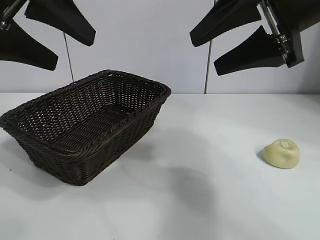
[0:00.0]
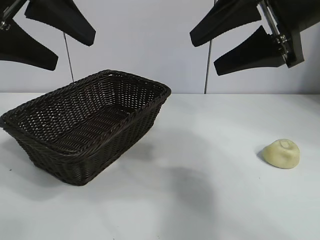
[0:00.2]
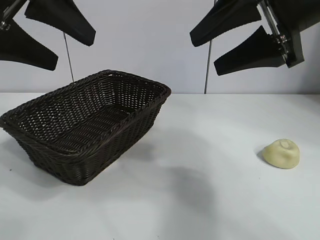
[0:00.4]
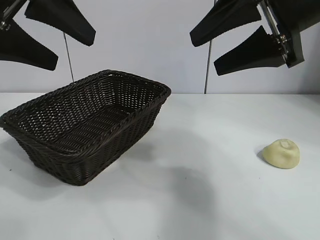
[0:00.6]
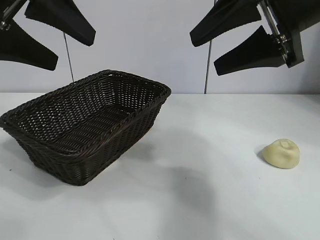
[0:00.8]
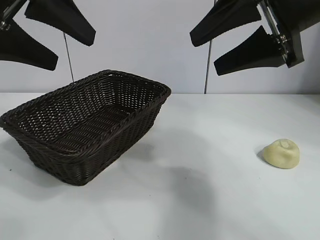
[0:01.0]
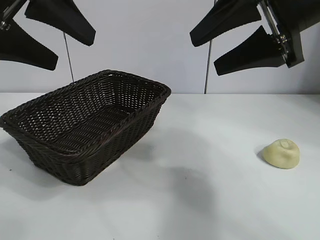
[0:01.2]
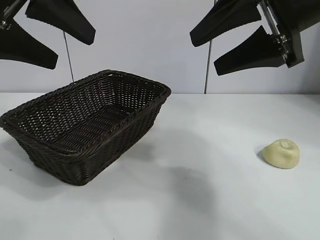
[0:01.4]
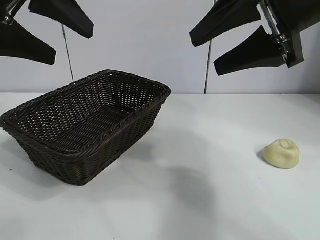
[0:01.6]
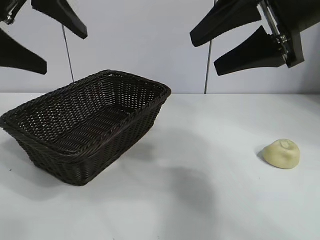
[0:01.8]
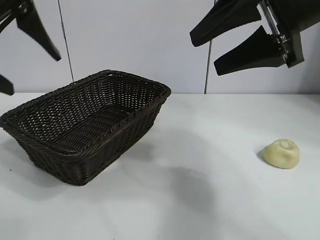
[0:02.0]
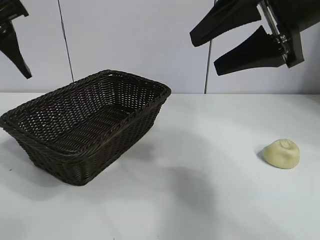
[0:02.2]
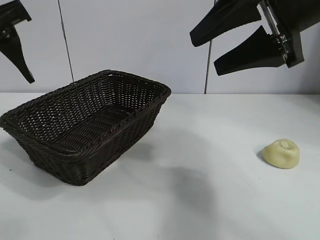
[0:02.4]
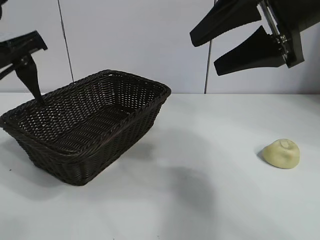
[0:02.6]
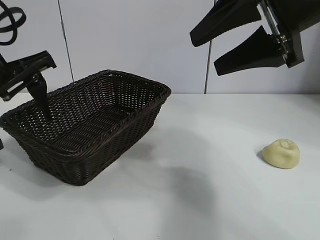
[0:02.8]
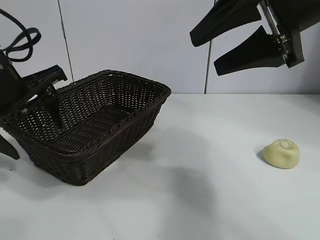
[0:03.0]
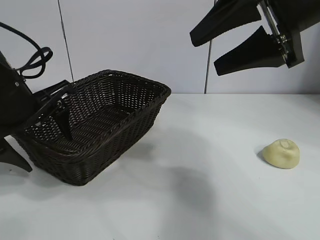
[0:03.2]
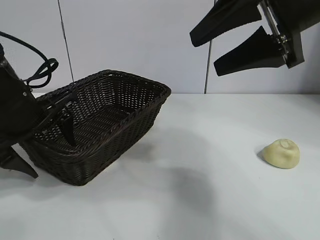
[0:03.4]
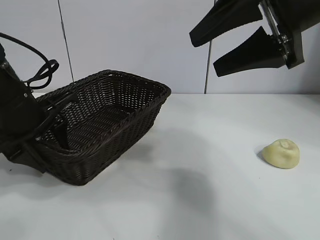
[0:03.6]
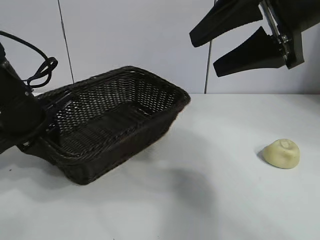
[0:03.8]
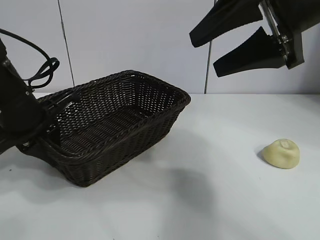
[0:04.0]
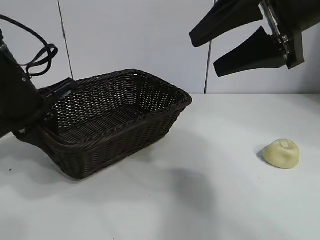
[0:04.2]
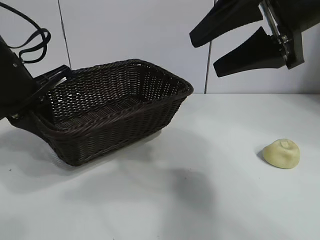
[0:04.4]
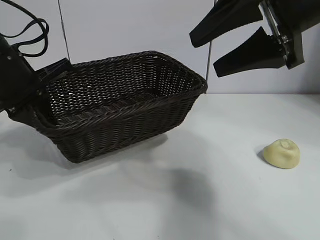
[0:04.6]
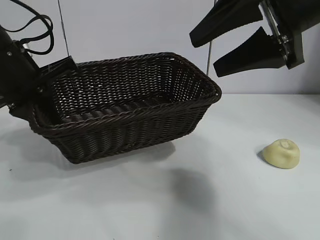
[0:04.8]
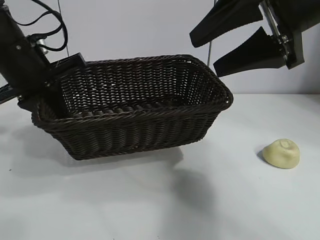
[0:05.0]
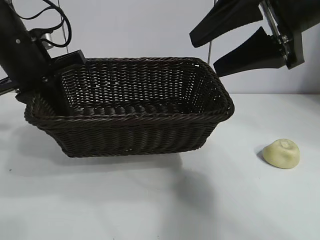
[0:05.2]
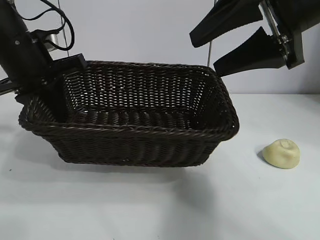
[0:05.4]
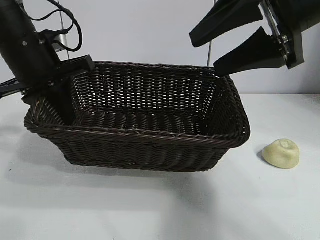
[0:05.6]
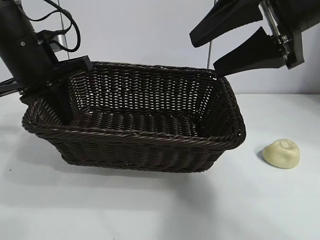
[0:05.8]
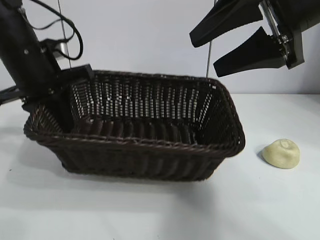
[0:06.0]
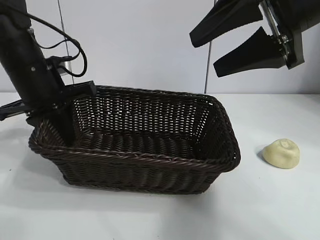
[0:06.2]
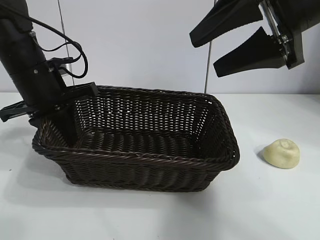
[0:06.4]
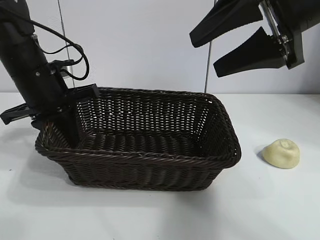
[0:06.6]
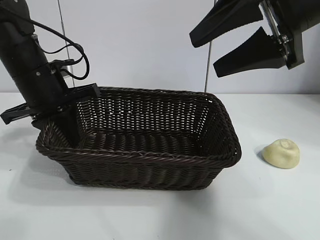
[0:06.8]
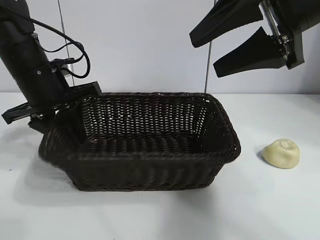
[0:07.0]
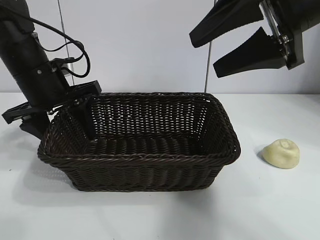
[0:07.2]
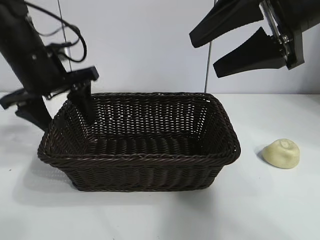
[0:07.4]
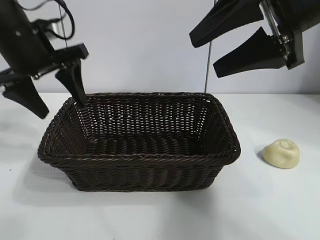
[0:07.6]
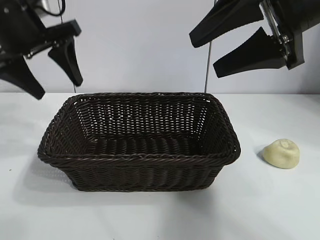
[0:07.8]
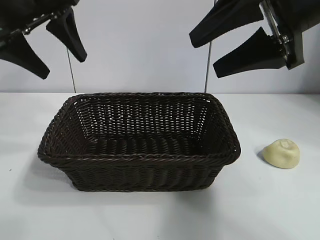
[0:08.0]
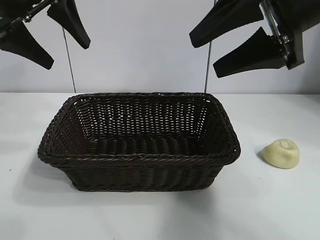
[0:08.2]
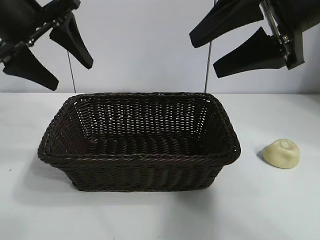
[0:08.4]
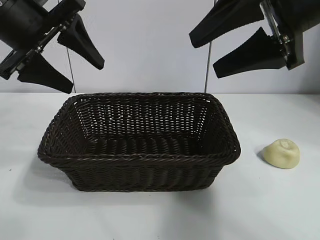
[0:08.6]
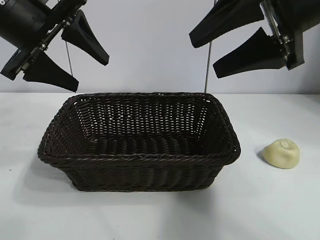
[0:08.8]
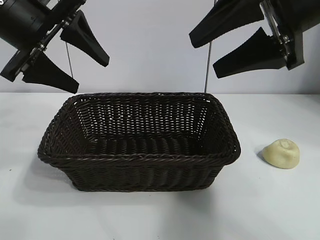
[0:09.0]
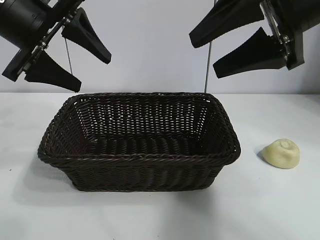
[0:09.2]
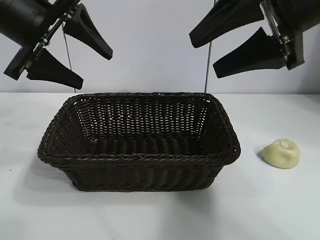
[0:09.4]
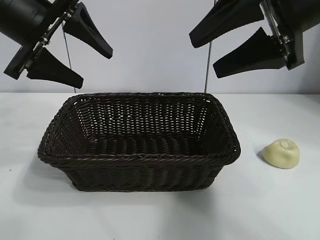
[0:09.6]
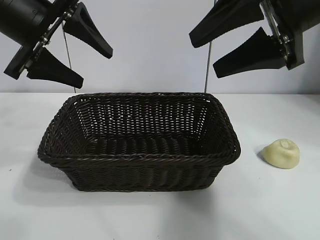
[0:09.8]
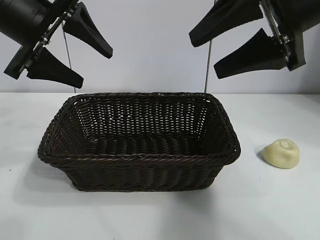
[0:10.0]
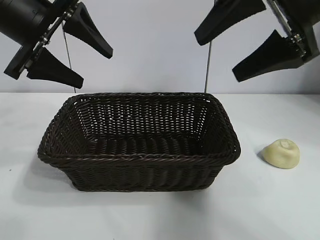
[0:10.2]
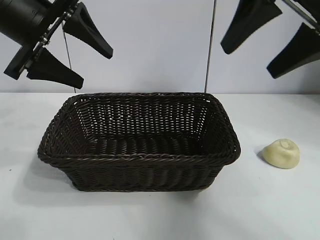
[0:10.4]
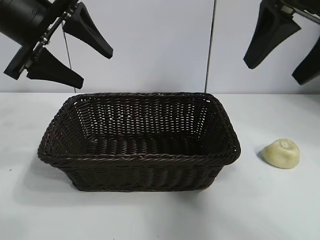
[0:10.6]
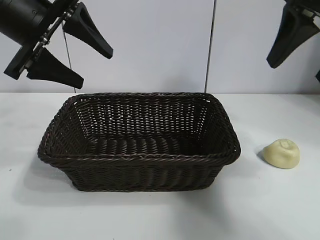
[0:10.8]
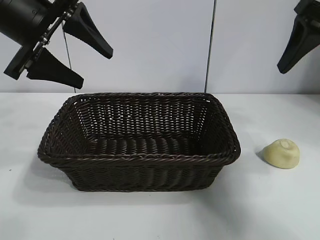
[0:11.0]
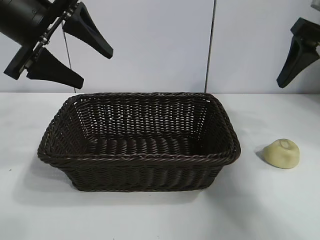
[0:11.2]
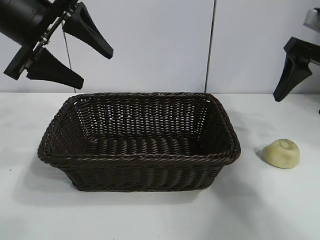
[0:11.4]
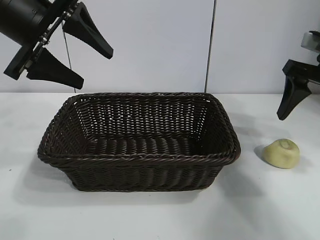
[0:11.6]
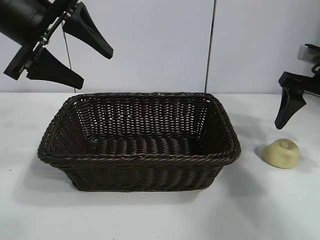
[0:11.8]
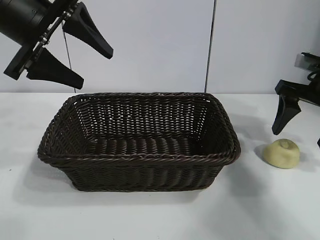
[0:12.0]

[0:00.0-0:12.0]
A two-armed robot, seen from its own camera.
Task of the whole recording: pick up the egg yolk pastry and put it into the basket.
Step, 0:01.4 to 0:03.8: Grasp the basket with left gripper.
Step, 0:04.0 to 0:07.2: Place the basket in the center of view with left gripper.

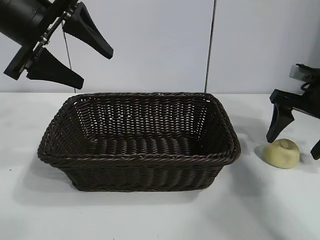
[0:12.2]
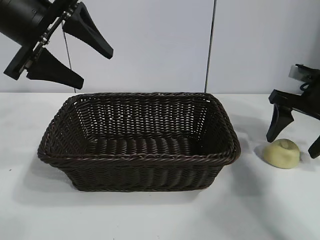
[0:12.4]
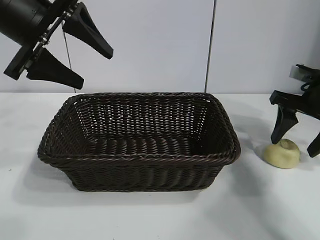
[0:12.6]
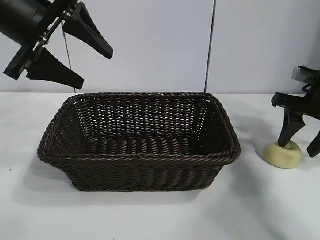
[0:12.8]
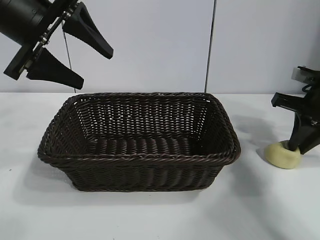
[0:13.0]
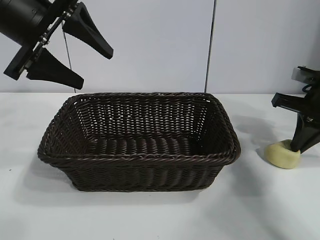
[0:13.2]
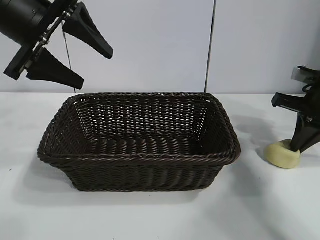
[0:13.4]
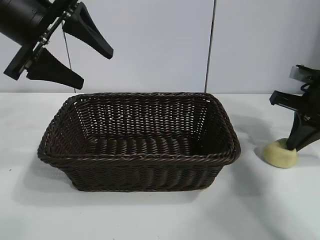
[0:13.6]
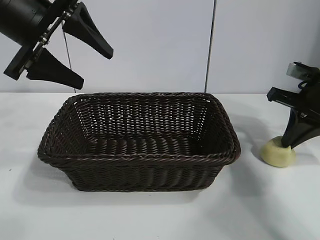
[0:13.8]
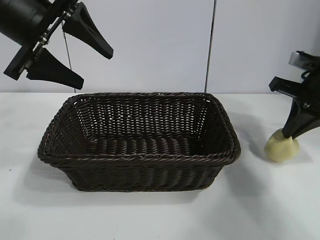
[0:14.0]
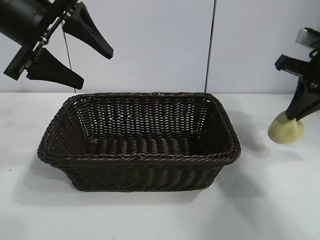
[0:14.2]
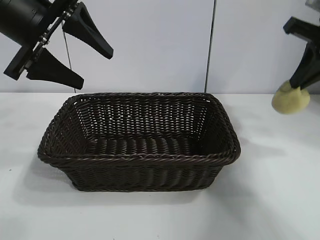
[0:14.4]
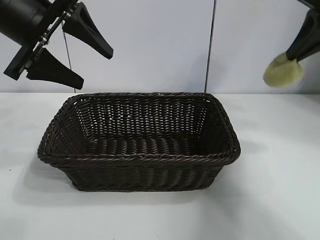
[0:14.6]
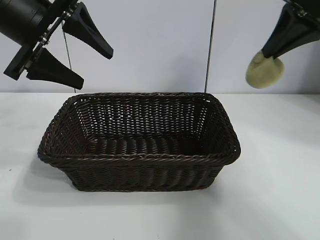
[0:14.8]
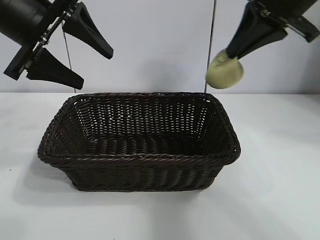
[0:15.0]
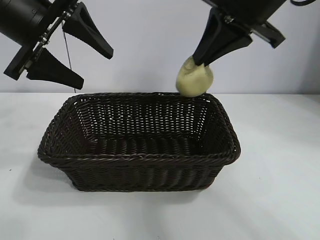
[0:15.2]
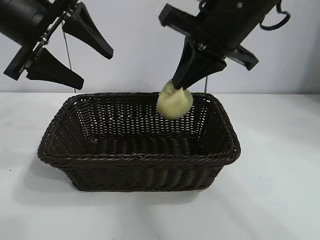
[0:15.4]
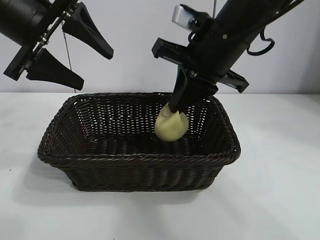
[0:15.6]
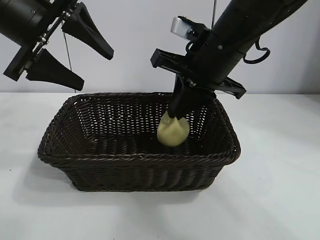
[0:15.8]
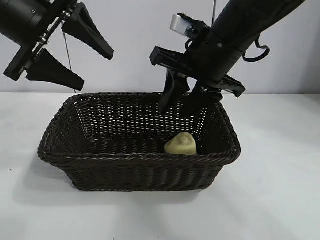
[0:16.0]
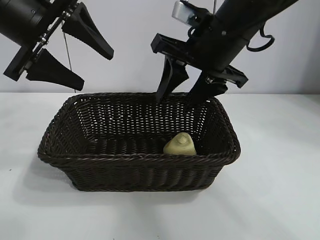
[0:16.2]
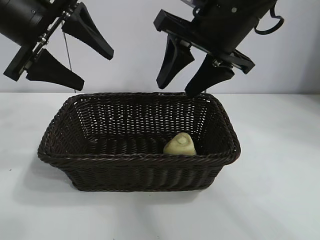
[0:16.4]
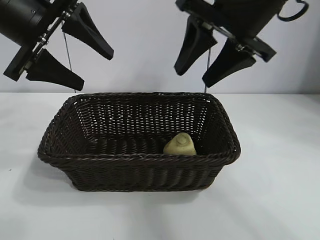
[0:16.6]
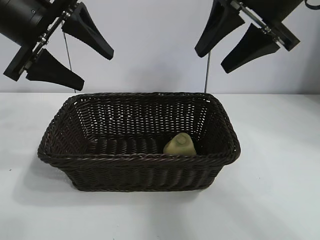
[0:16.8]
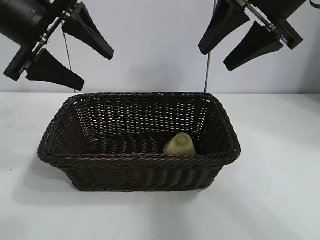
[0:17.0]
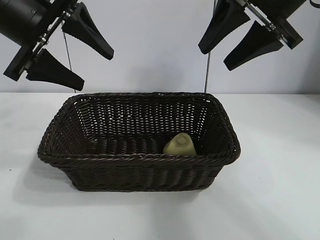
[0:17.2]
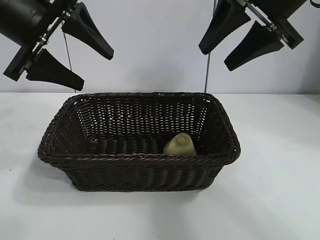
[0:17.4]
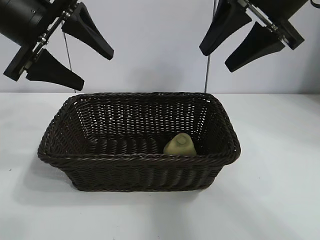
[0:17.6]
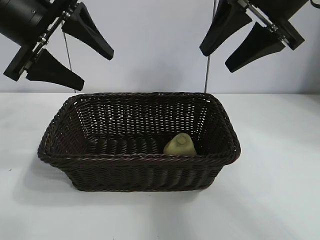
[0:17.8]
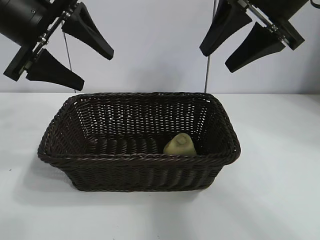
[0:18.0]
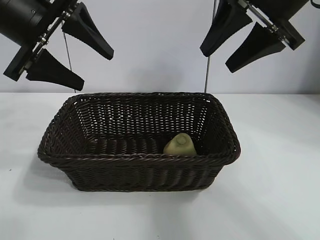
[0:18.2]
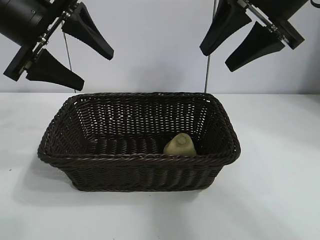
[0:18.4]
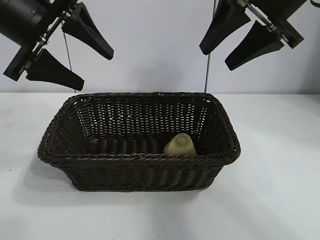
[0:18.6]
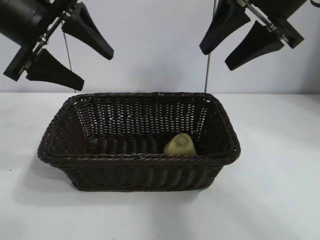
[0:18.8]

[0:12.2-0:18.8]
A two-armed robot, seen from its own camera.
Task of the whole recording: pick up the egg yolk pastry and put it into the basket.
Step, 0:13.2 to 0:16.0: Place the egg yolk pastry in the basket with right gripper.

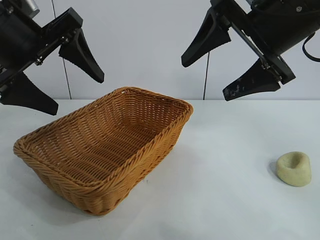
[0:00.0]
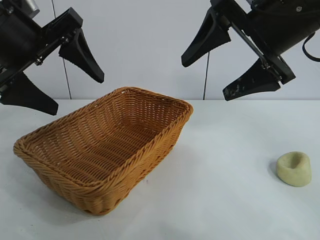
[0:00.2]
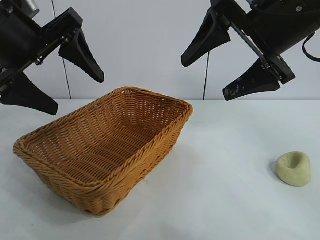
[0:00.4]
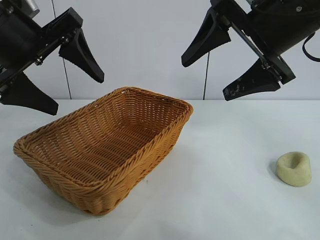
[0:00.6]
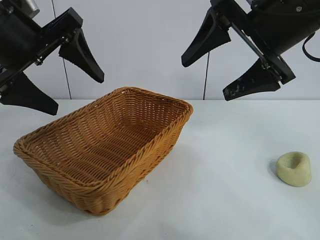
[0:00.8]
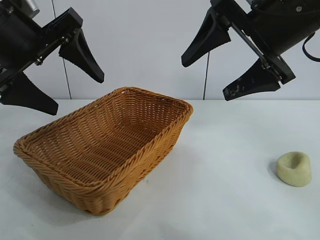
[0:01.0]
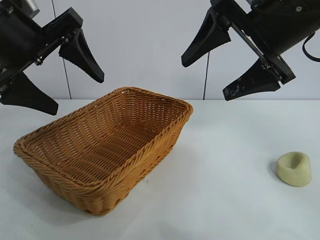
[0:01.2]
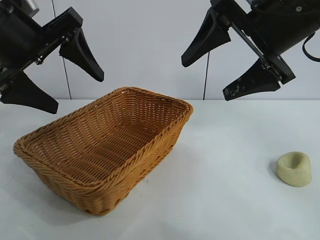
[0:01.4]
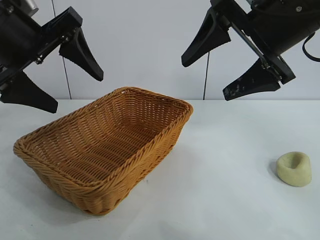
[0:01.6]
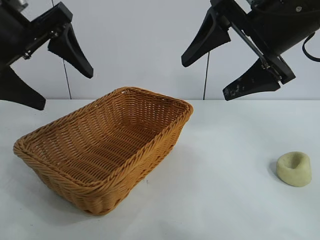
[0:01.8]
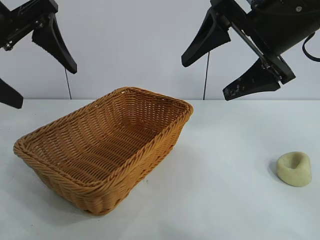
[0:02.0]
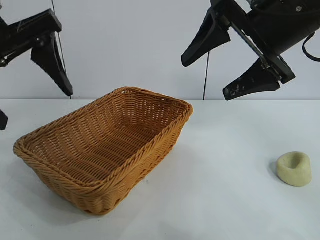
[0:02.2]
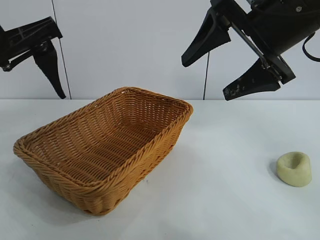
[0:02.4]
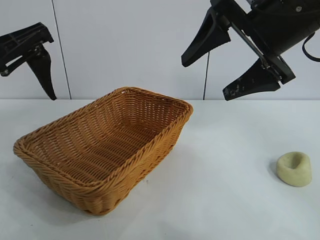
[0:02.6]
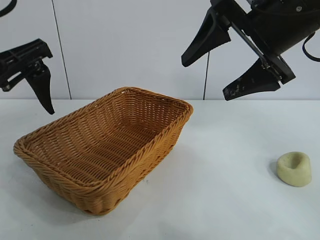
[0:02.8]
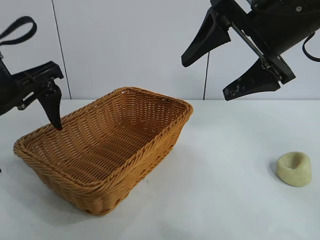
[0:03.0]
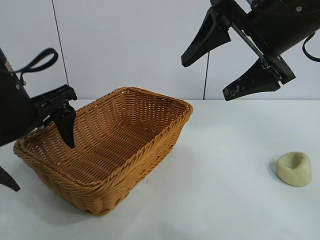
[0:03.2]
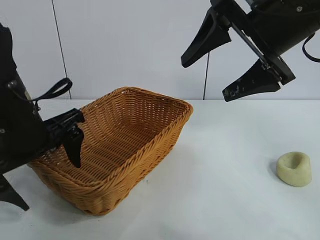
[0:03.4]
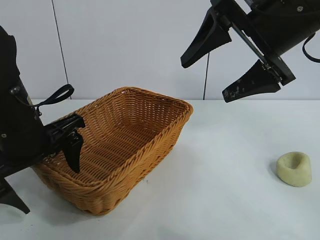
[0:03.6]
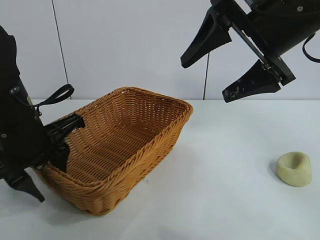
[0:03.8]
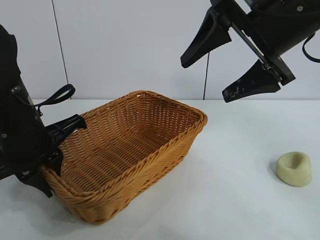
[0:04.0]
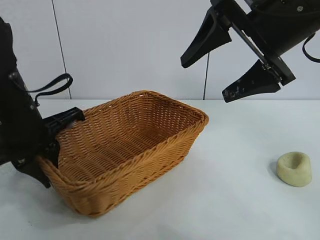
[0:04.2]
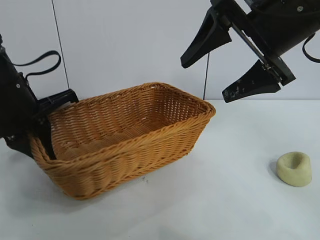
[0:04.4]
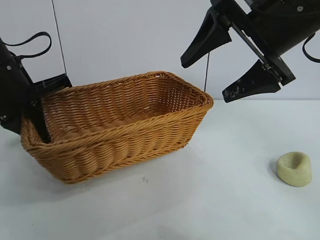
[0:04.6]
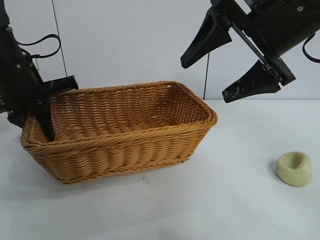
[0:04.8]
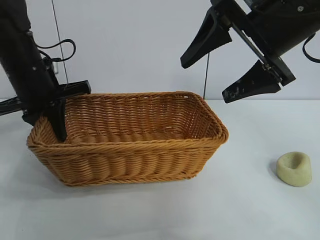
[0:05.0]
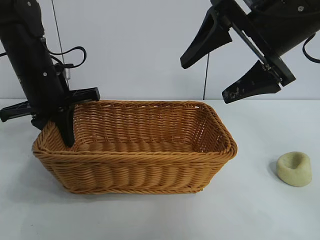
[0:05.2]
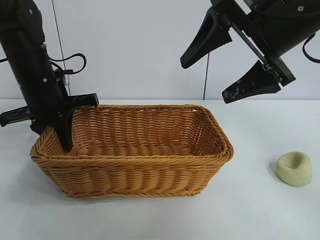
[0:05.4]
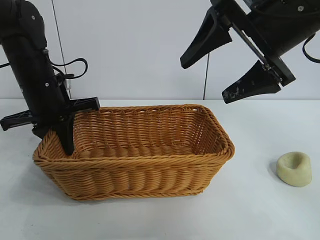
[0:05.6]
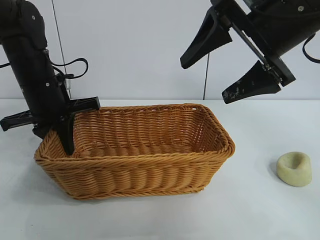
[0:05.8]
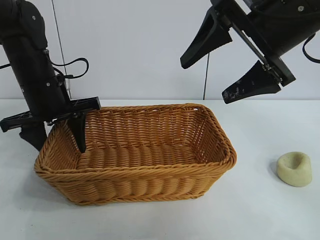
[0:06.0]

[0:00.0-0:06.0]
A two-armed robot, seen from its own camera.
Task of the whole recording: pick up the egg yolk pastry and put it into the basket.
Step, 0:01.4 to 0:03.8: Grasp the basket with left gripper.
Step, 0:04.2 to 0:05.8: Place the basket in the center of view with left gripper.
